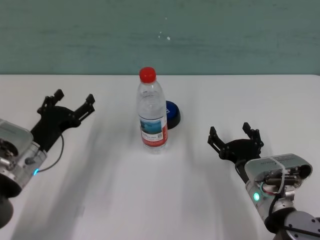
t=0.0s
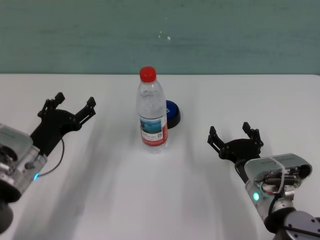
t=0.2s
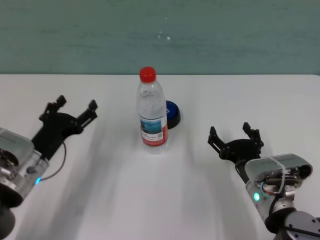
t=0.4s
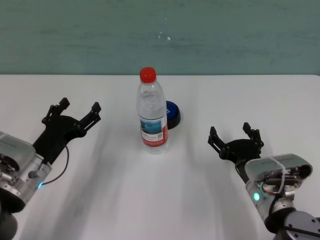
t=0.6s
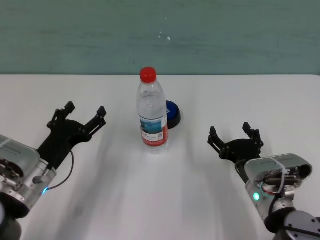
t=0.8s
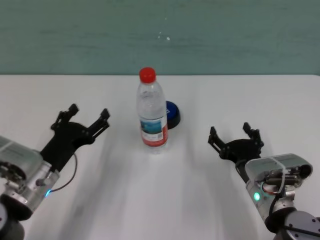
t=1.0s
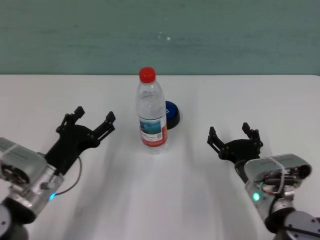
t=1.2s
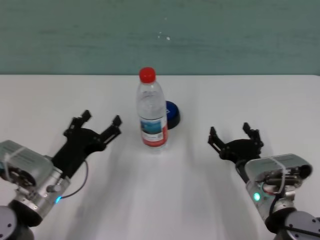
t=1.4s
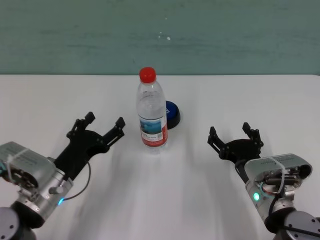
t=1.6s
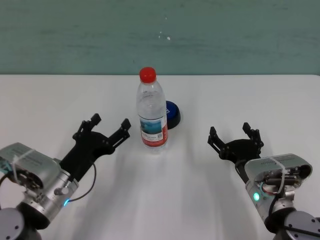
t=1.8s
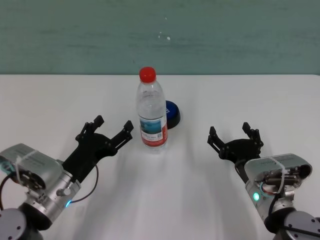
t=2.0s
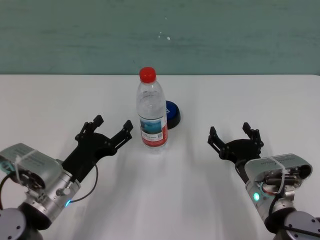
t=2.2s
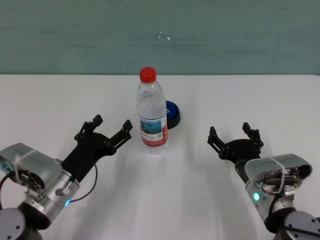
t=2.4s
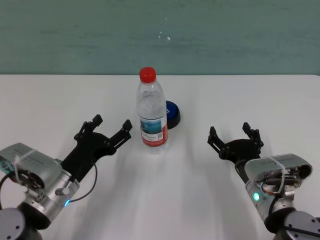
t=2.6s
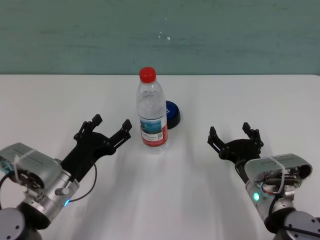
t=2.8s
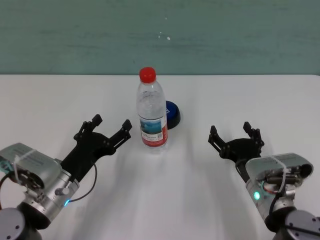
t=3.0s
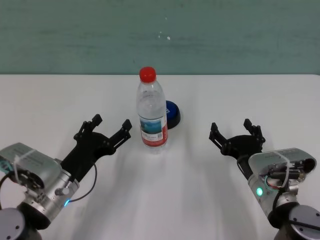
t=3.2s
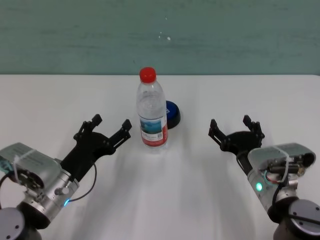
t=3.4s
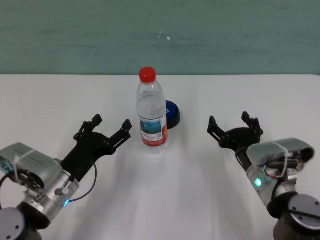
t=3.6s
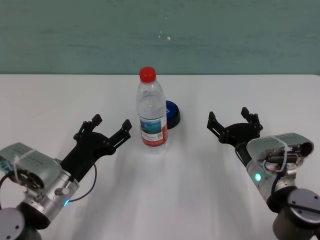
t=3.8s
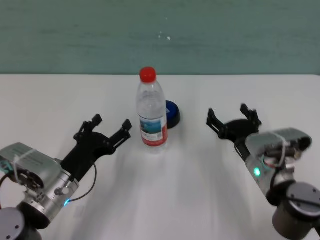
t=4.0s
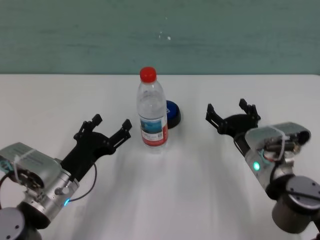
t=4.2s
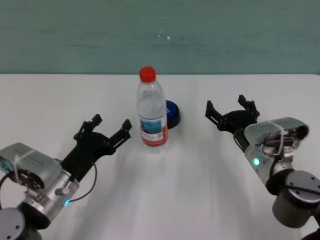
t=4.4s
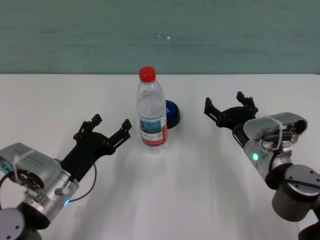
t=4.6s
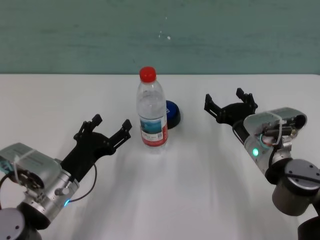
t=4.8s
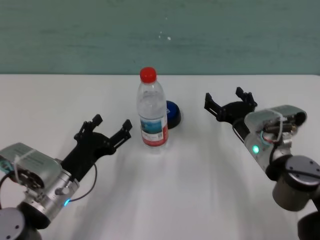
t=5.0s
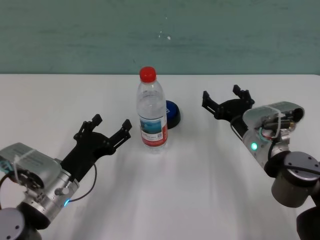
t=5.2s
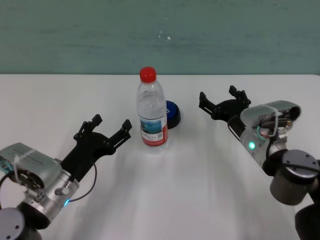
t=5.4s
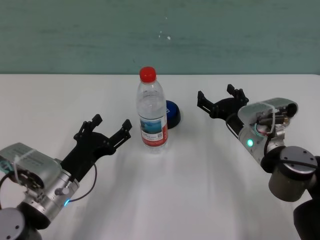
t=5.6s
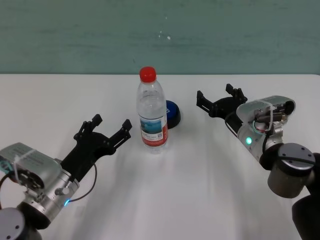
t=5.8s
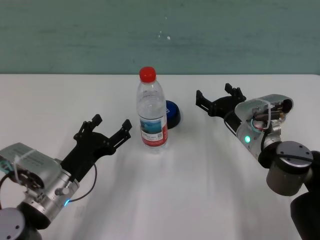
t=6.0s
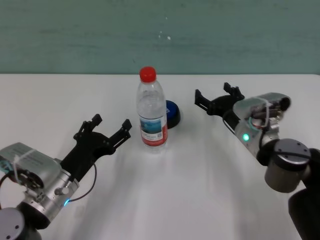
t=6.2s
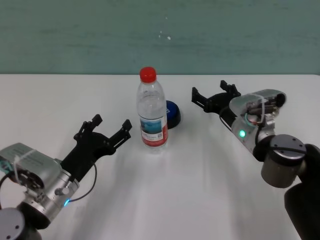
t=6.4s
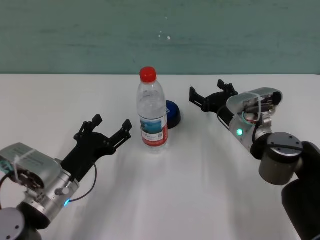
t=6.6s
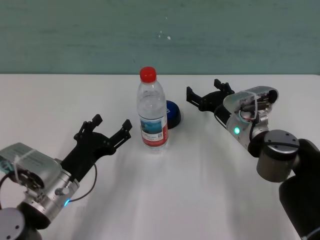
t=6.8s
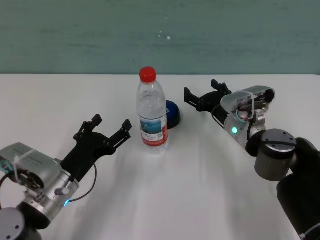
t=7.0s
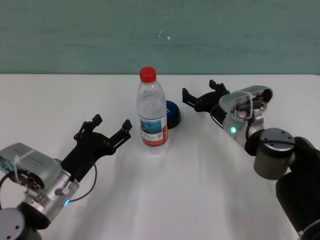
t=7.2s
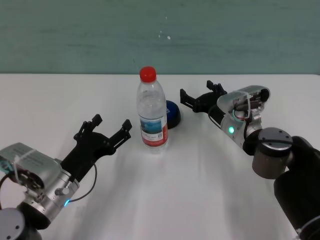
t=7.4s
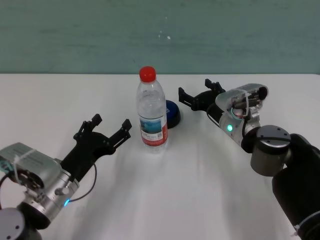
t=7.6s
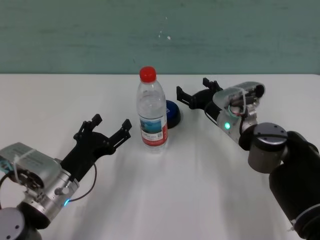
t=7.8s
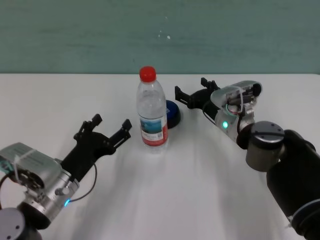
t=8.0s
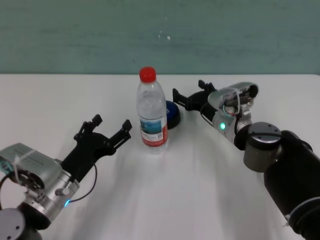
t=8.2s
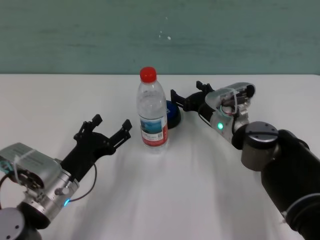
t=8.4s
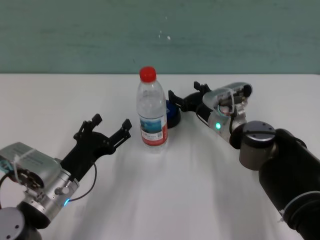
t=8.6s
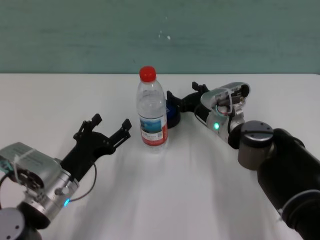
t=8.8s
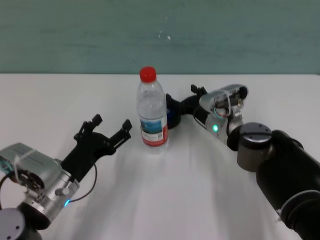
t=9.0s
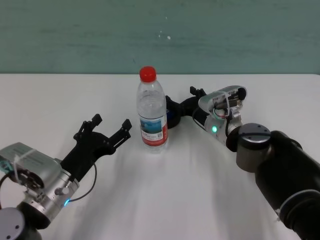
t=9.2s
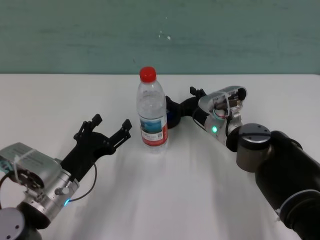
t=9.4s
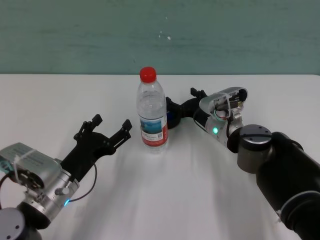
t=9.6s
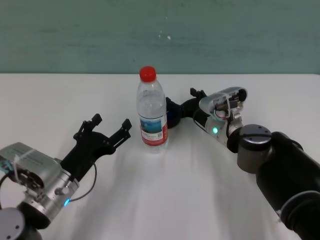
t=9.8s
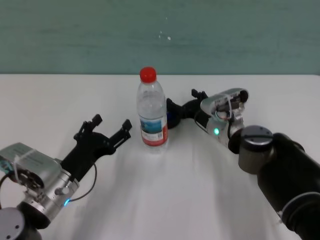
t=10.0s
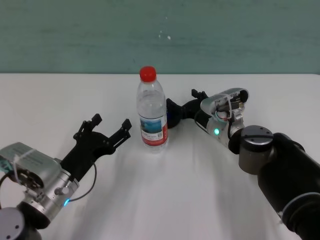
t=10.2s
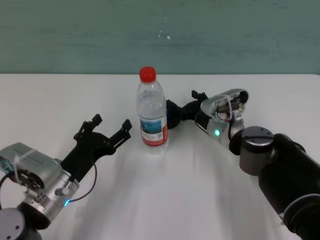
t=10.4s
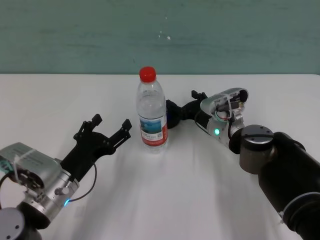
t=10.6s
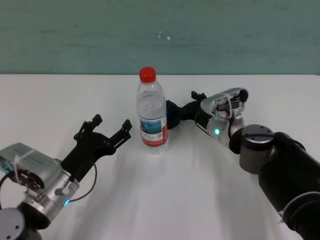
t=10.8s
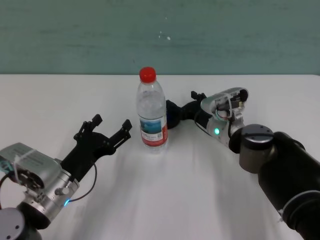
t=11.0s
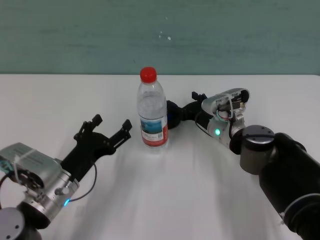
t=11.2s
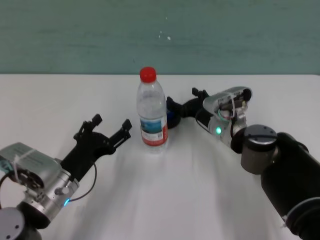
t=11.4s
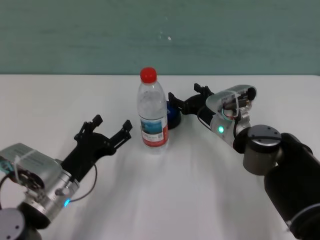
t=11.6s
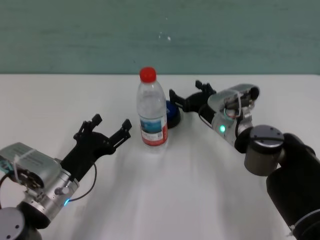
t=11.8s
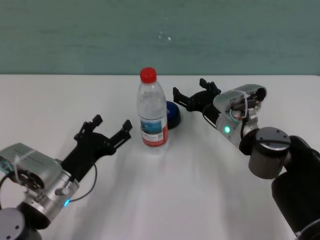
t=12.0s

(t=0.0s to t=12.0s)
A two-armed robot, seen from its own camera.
Task of the whole recording: after avoiding the water bottle on the table, press the button.
Step, t=0.0s - t=11.4s: Press the button blocked by the bottle with right gripper.
